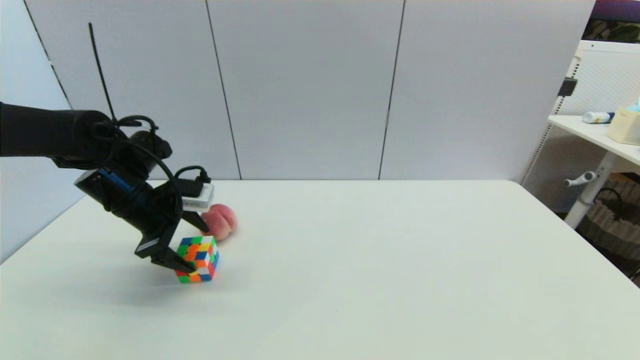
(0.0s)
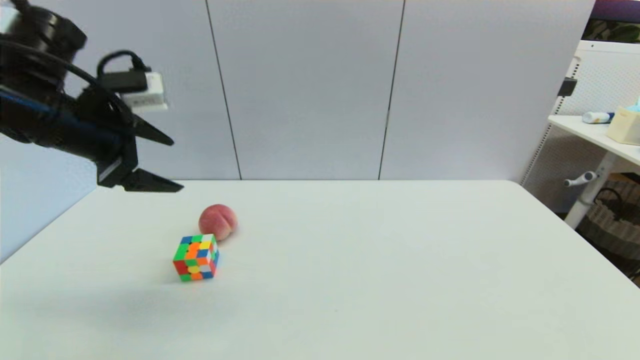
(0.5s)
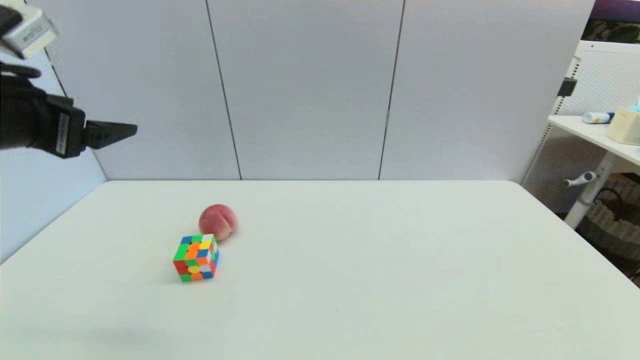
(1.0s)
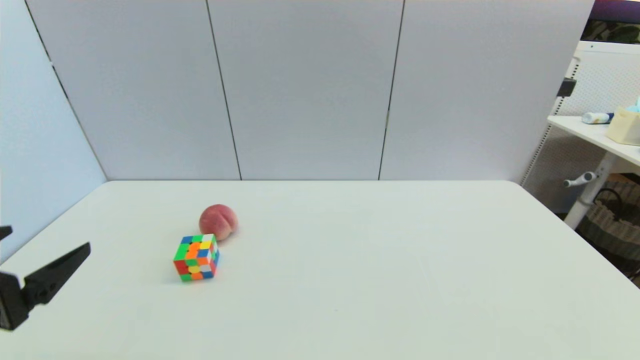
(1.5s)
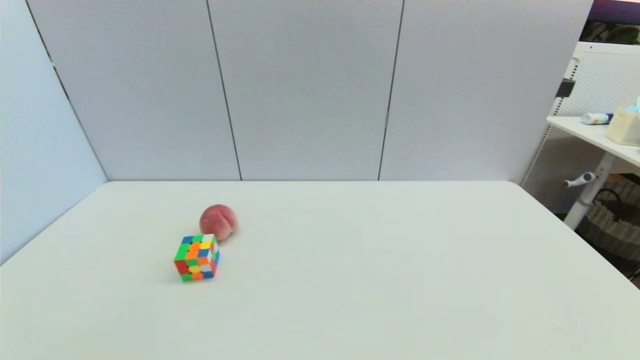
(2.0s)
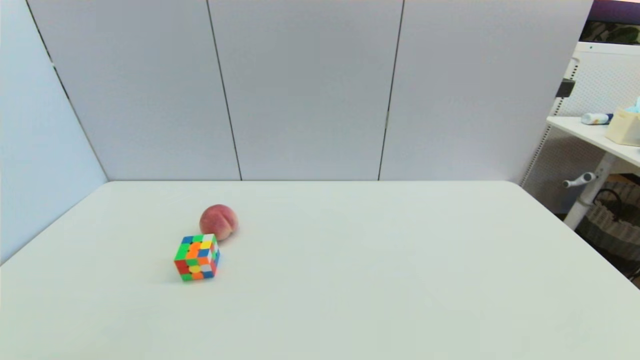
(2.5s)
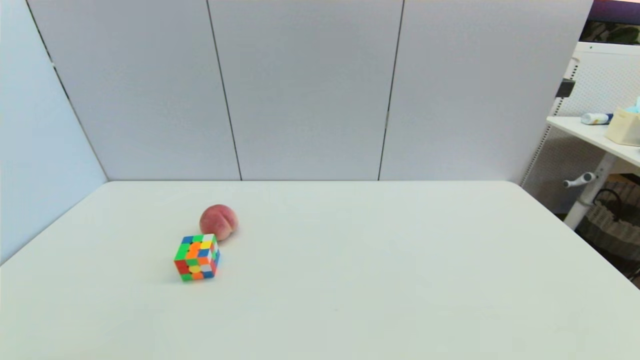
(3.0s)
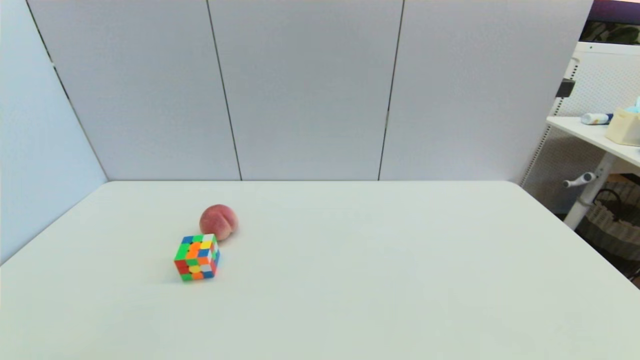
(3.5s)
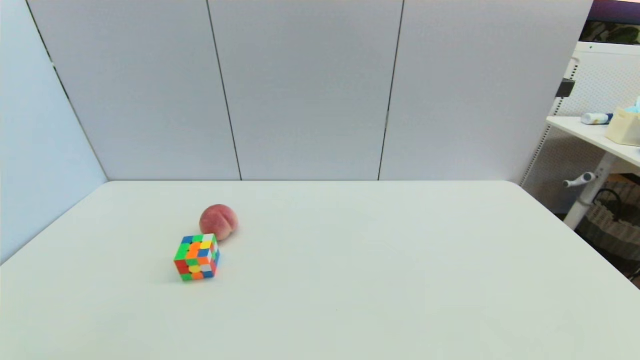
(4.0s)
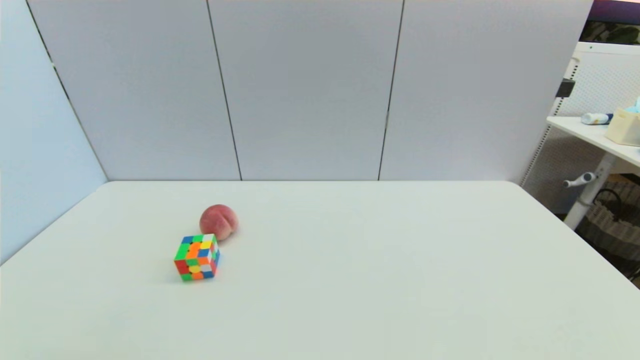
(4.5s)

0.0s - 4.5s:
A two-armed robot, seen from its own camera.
0.0s - 2.0s: The left gripper travels backward by about 35 cm.

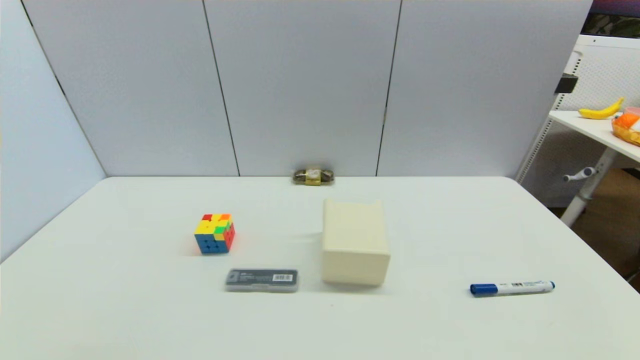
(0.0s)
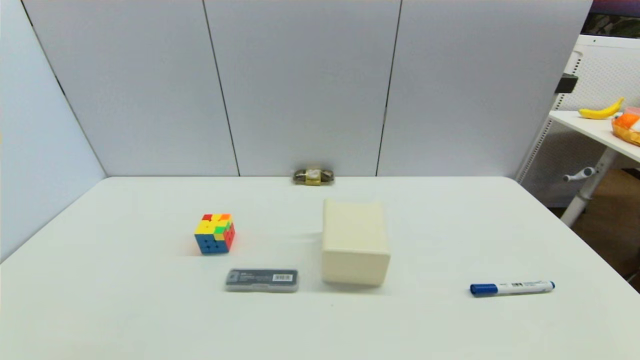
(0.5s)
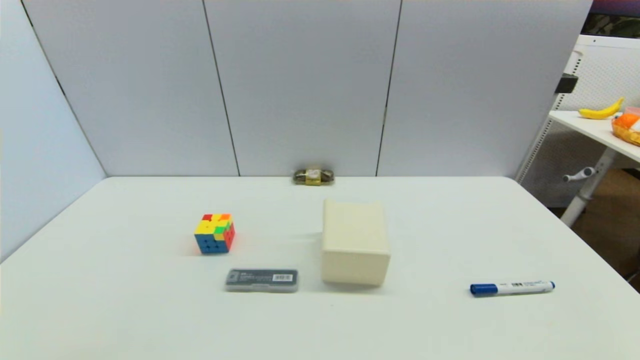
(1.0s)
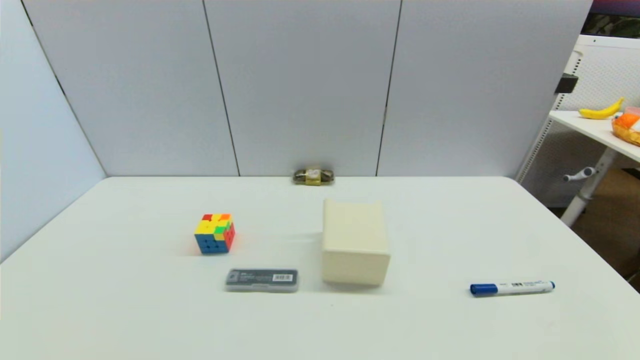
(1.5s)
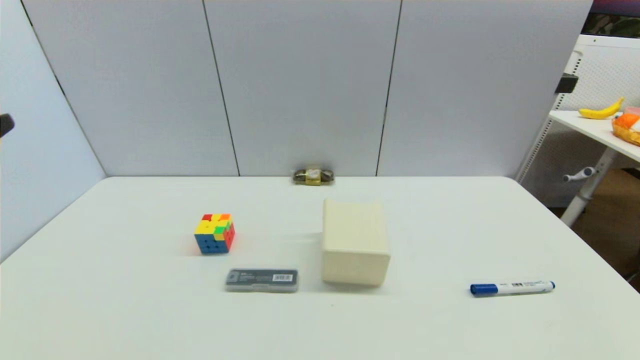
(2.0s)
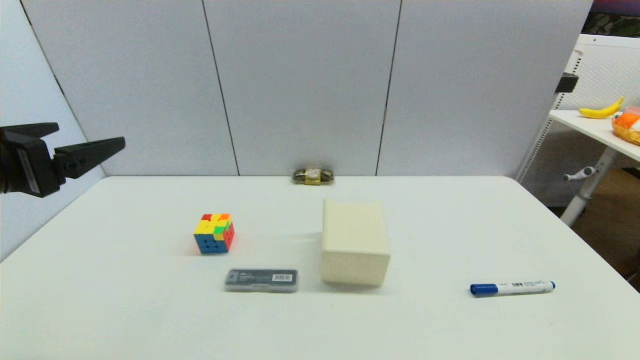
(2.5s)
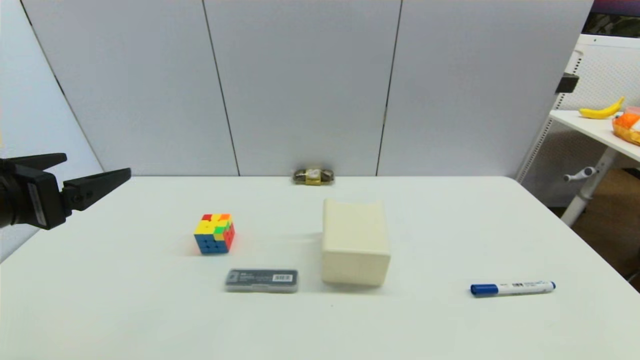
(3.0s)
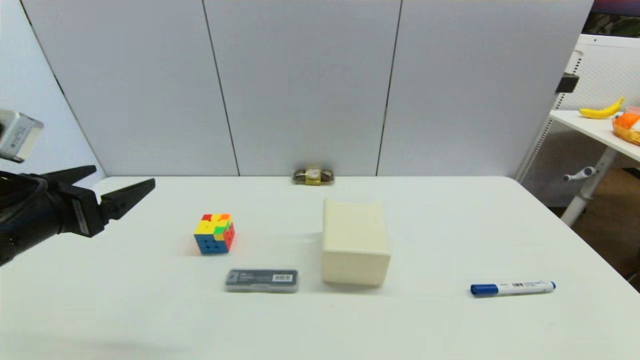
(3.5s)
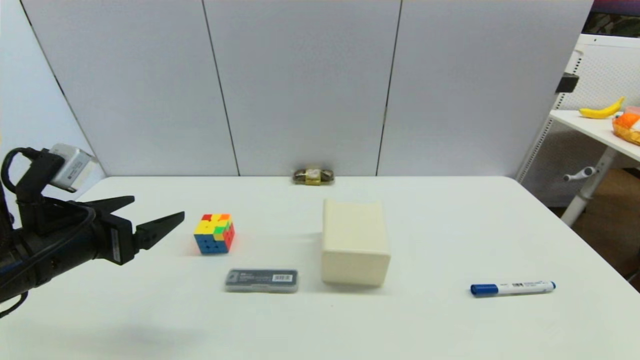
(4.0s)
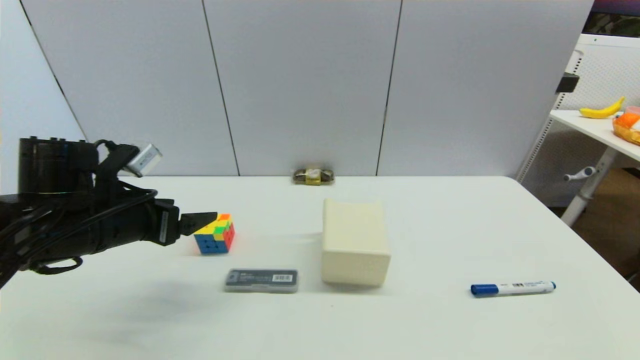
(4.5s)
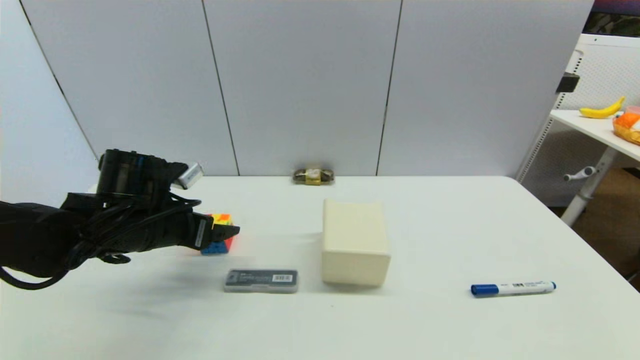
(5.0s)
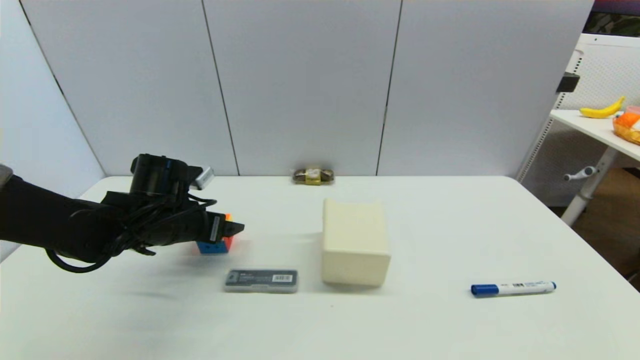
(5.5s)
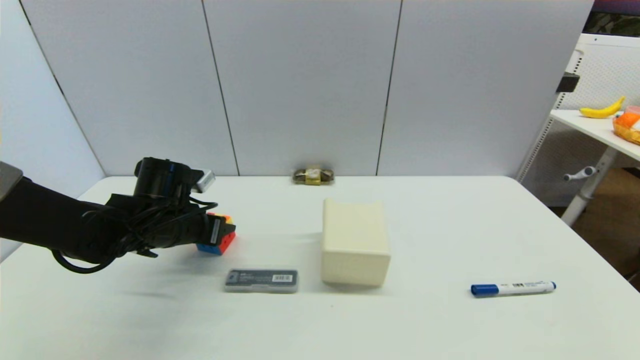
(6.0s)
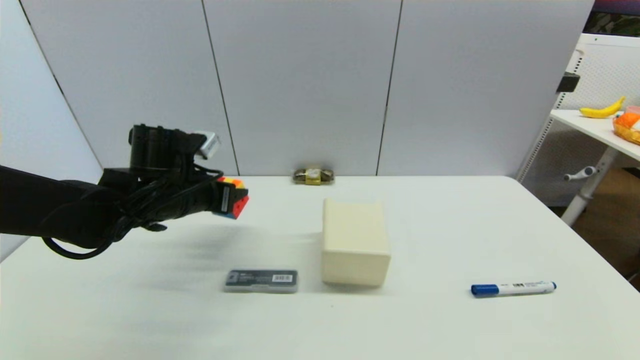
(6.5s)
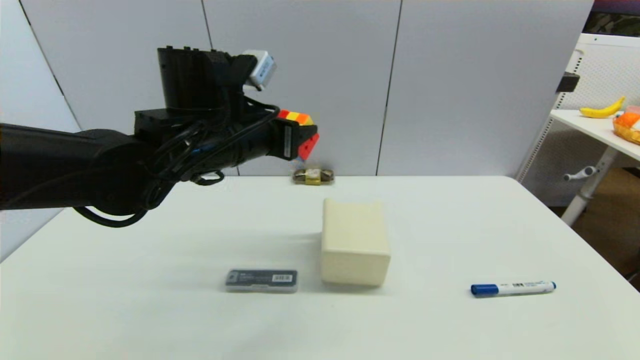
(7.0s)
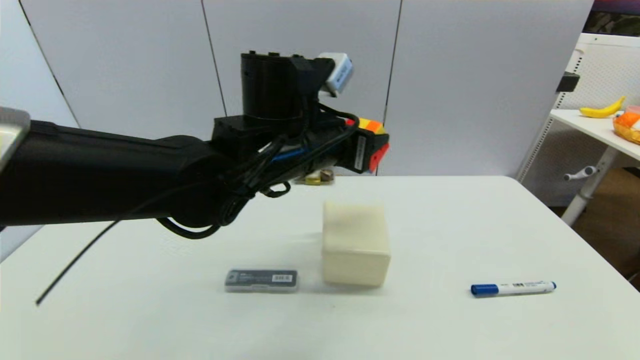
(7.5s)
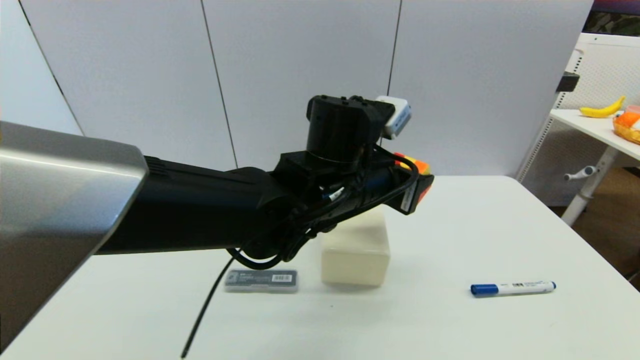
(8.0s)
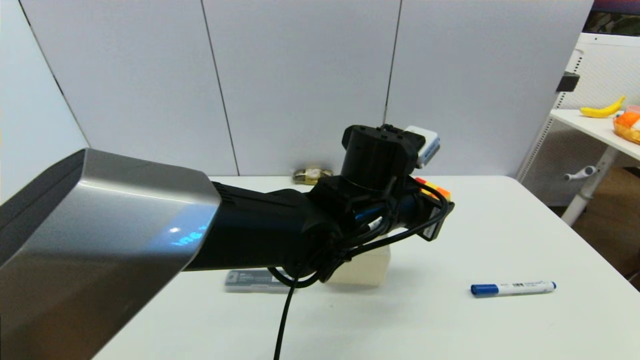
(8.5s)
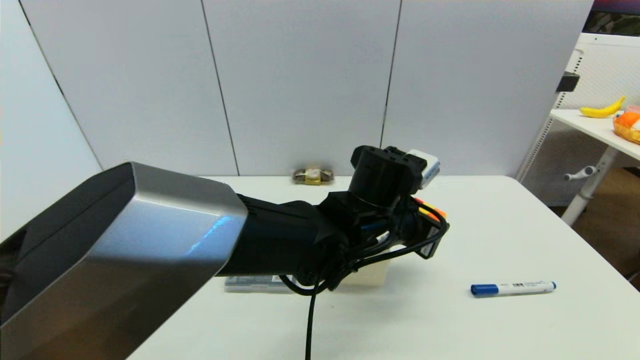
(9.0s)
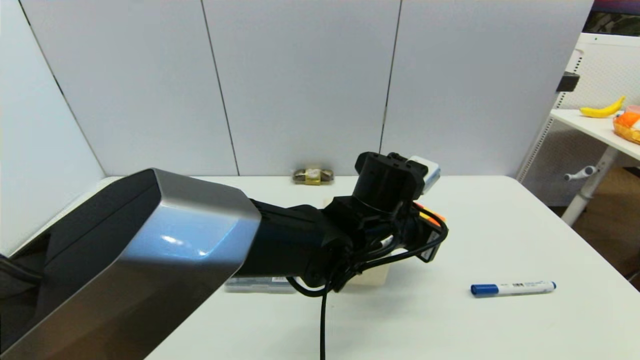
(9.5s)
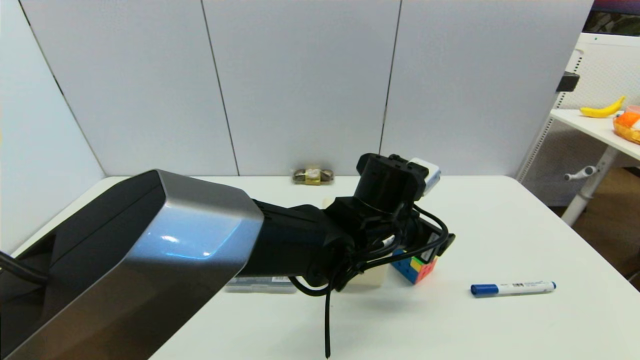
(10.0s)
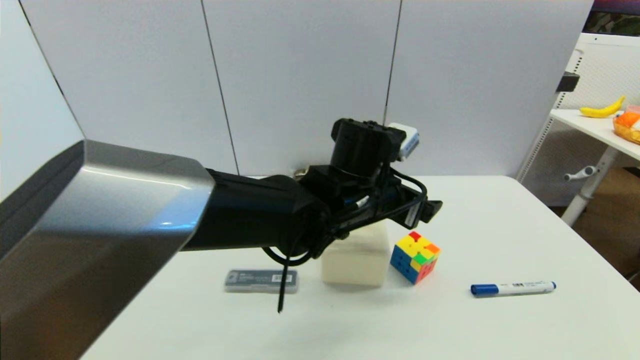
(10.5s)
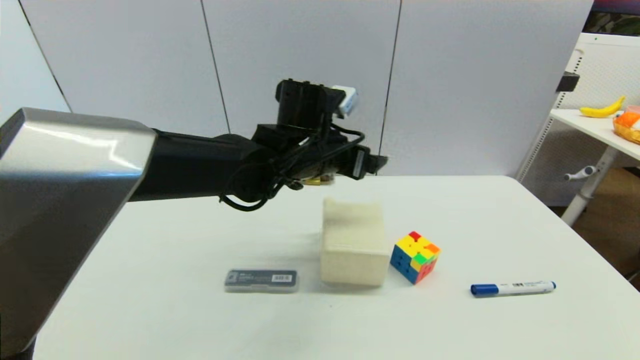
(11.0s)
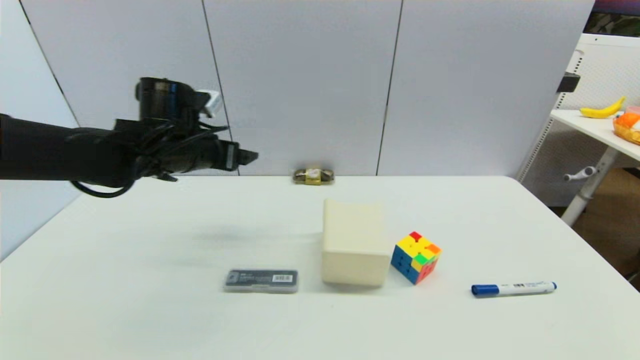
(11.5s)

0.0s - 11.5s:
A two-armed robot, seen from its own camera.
Step, 1.5s - 6.0s: Grasp the magic cube with left gripper.
Step, 6.5s - 10.5s: Place the magic cube on the table with left gripper.
2.0s - 4.0s: The left gripper heads downward and forward, covering approximately 15 cm.
4.0s - 6.0s: The left gripper goes approximately 15 cm forward, downward and to the right, and closes.
6.0s - 7.5s: The left gripper shifts some 25 cm to the right and upward.
7.5s - 9.5s: The left gripper shifts about 15 cm downward and to the right.
9.5s - 11.5s: The left gripper heads to the left, covering some 30 cm, and opens.

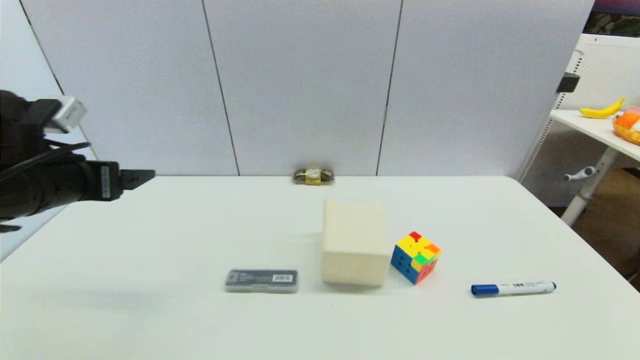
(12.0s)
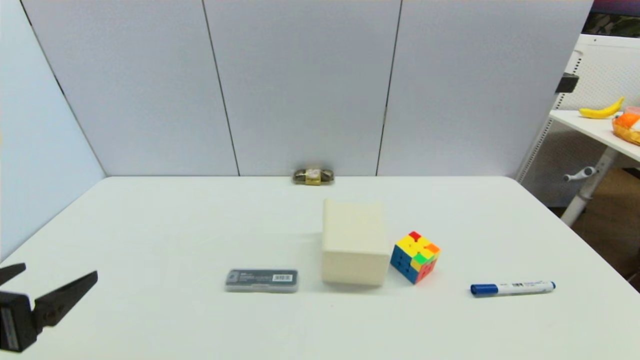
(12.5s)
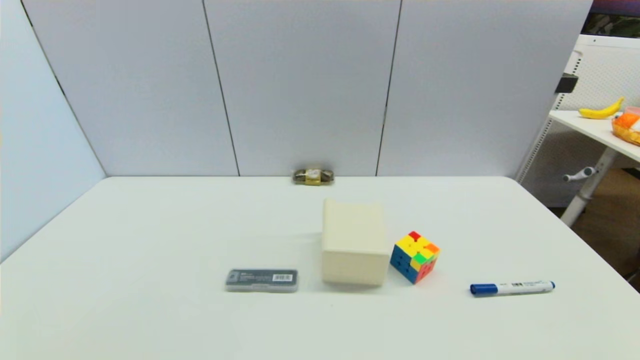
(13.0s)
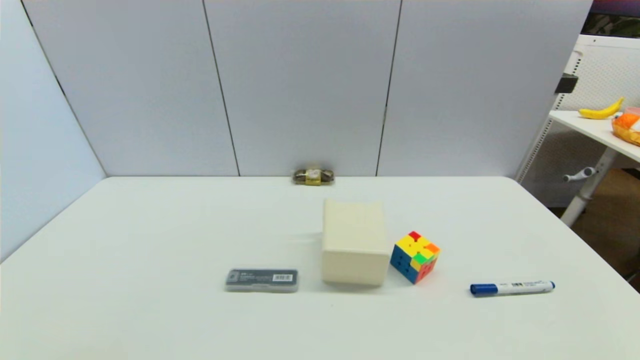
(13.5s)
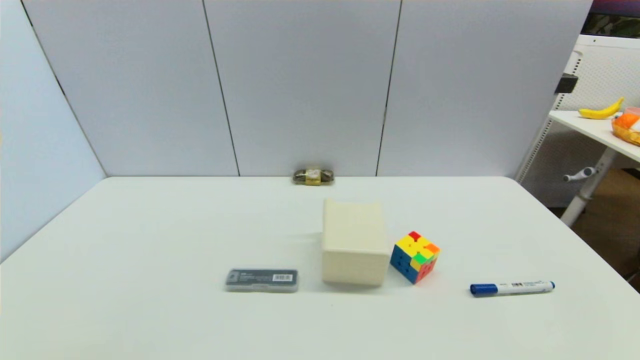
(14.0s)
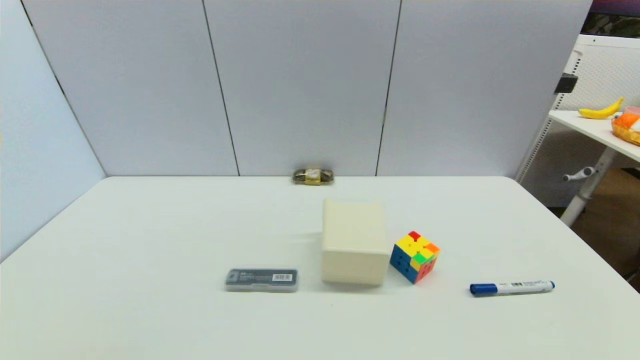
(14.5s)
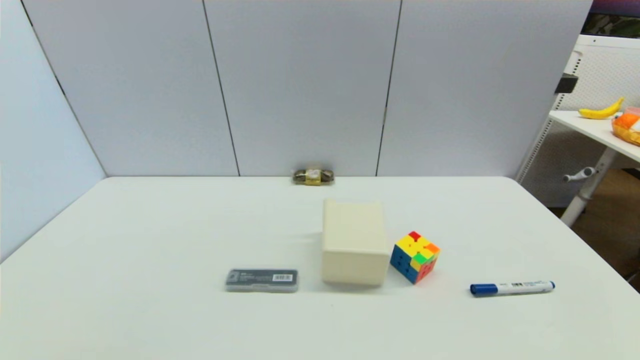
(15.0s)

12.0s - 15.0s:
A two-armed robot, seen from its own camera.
12.0s - 13.5s: The left gripper goes some 30 cm backward and downward.
13.5s - 15.0s: The two grippers keep their place.
